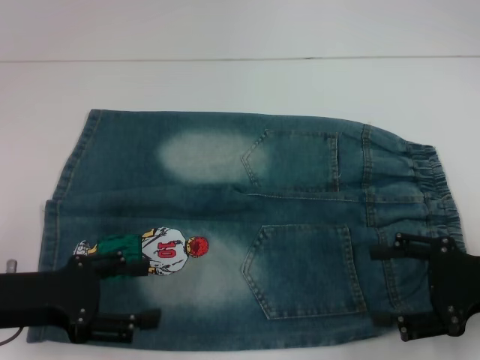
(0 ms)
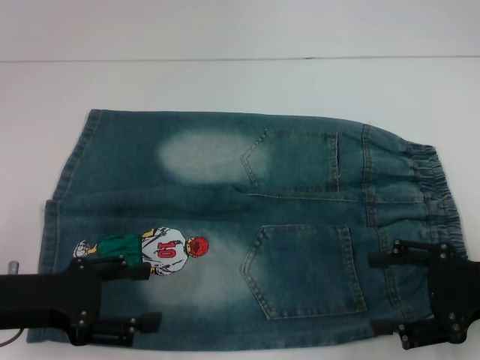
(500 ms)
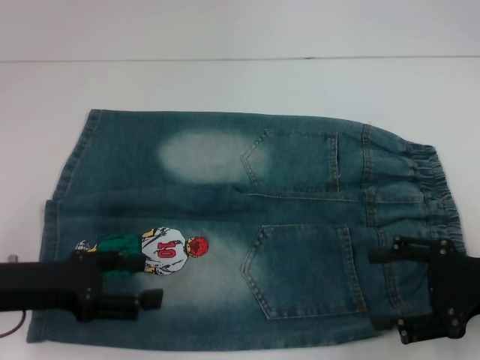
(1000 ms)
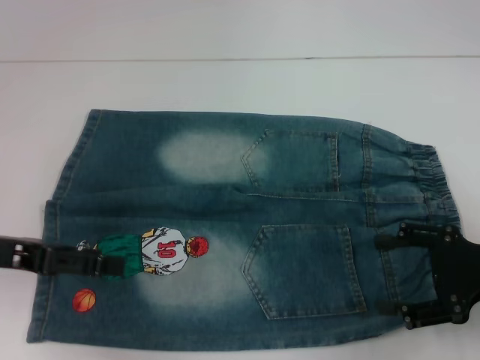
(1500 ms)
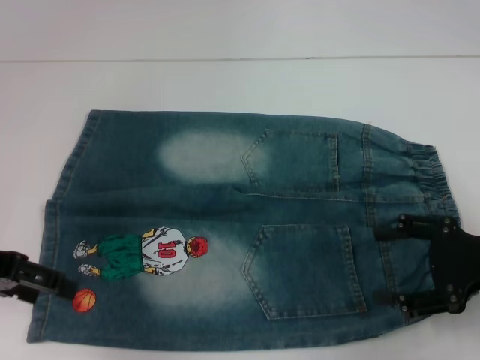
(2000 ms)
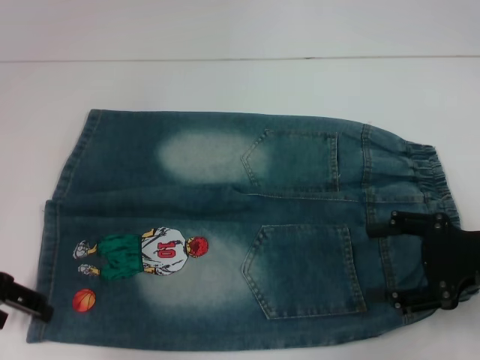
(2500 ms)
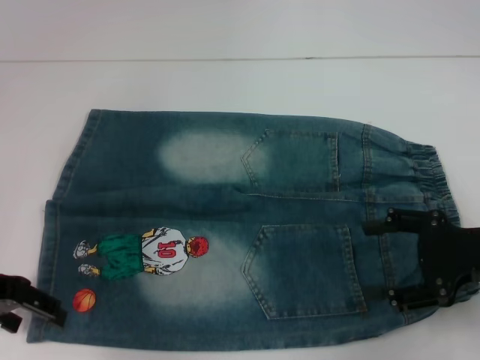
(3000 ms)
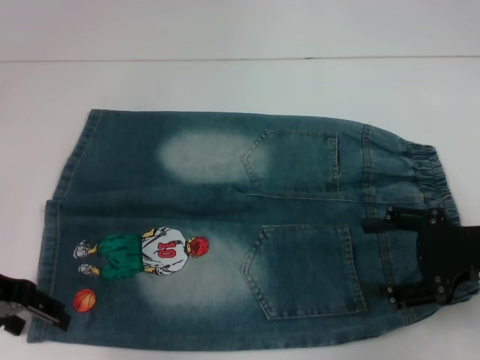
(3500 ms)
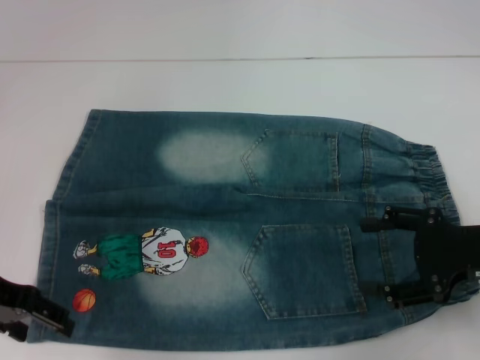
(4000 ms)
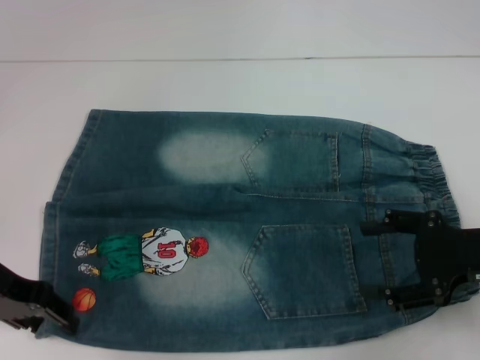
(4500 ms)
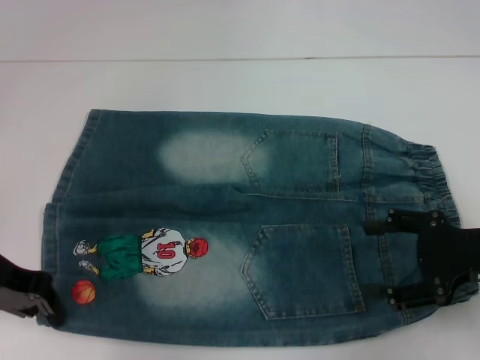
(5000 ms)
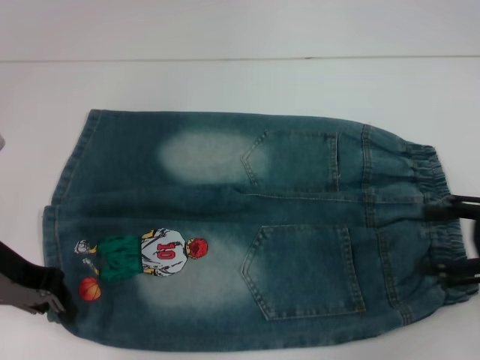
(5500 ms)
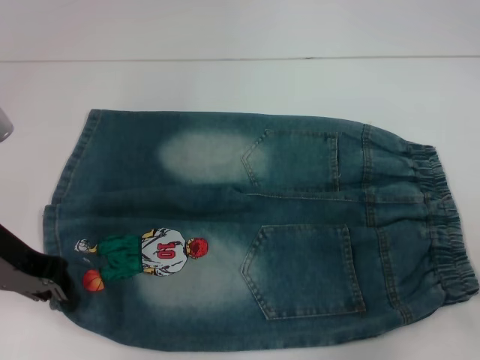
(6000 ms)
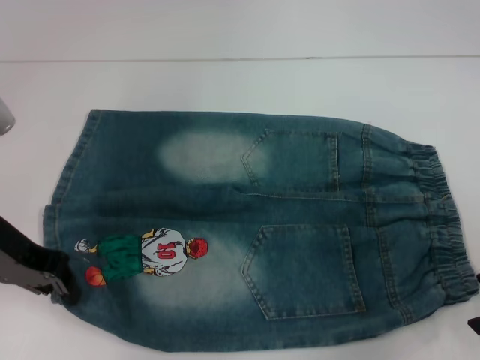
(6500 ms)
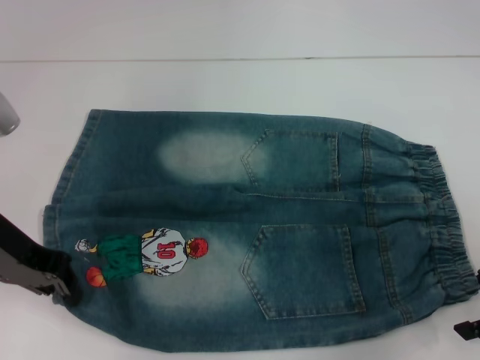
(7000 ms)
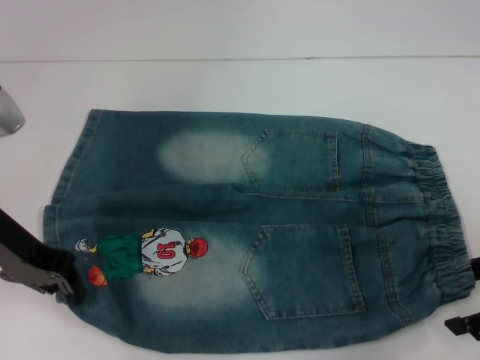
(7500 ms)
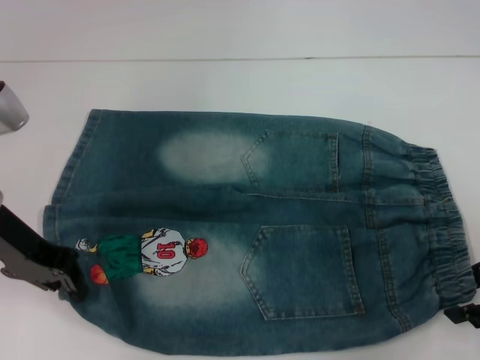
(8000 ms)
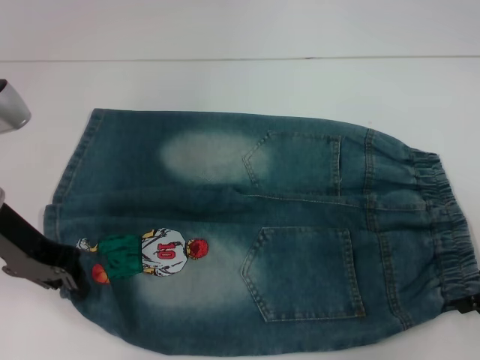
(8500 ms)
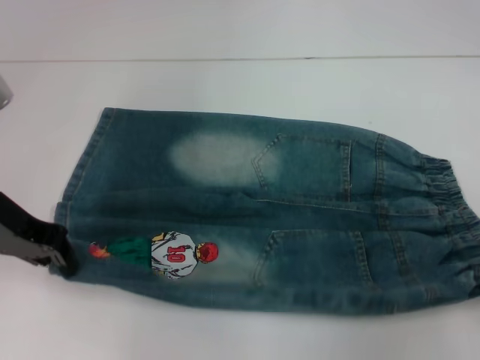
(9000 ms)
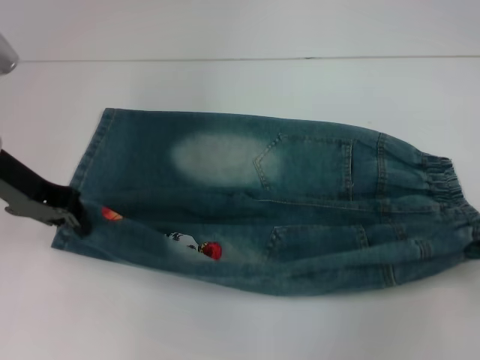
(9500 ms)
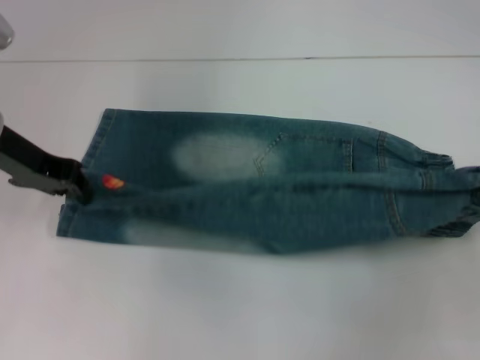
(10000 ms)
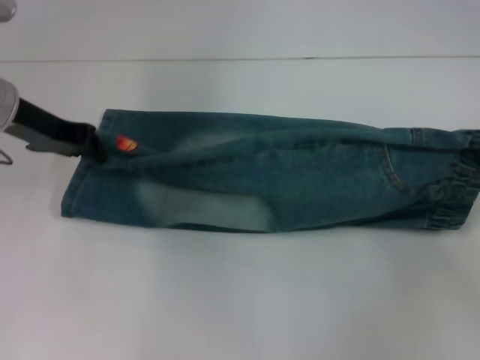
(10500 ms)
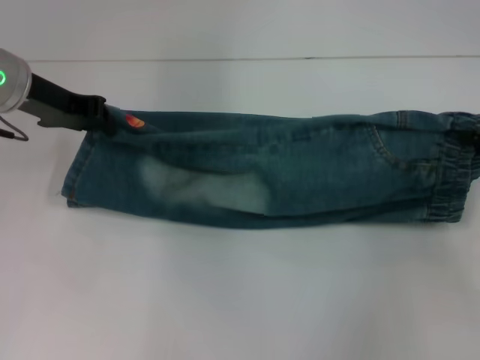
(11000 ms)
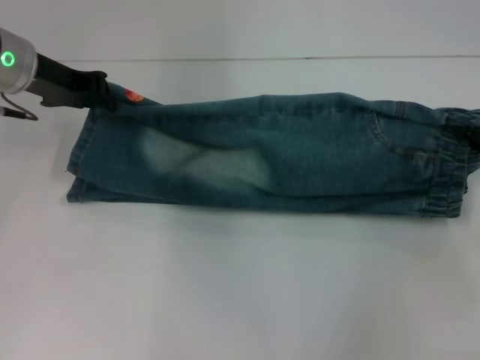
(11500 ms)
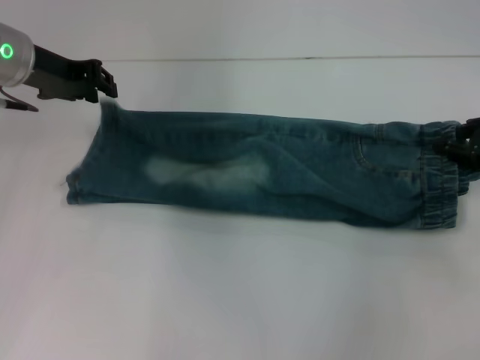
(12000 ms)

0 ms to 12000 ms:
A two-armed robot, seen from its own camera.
Step, 0 ms to 5000 ms: Grab the lower left pant leg with your left hand.
Step, 5500 ms to 8000 ms: Hold the lower right waistband with your right hand.
0 ms to 2000 ms: The left gripper travels upward and forward by about 10 cm.
2000 ms to 4000 ms: The grippers move only a little.
4000 ms to 6000 ms: The left gripper closes its fingers. Meanwhile the right gripper travels to the right and upward by roughly 10 cm.
6000 ms to 8000 ms: The right gripper shifts by about 5 cm, and closes.
8000 ms to 10000 ms: The right gripper heads upward, covering roughly 5 cm, and closes its fingers, while the left gripper shifts by about 5 cm.
10000 ms to 12000 ms: Both grippers travel together forward, approximately 5 cm.

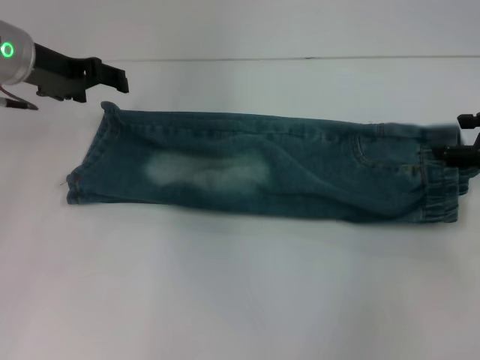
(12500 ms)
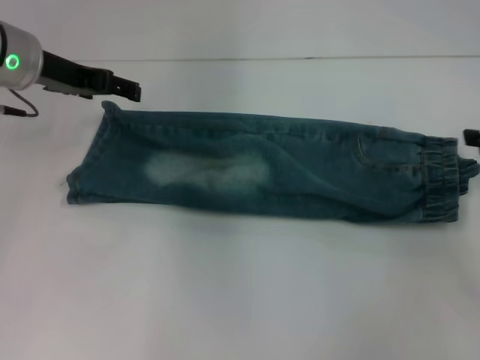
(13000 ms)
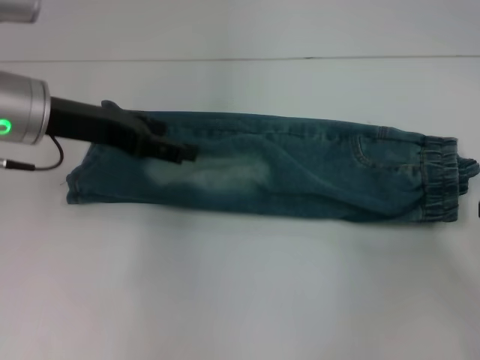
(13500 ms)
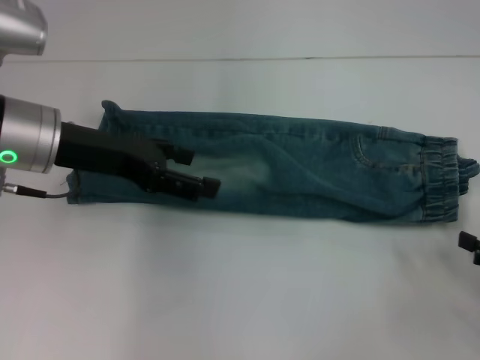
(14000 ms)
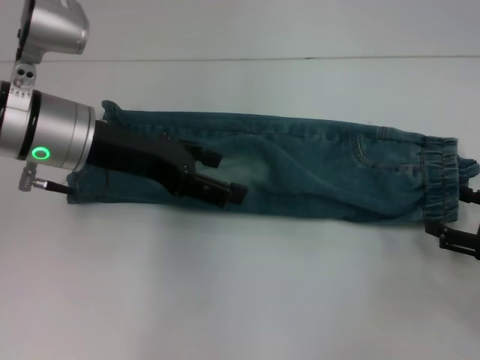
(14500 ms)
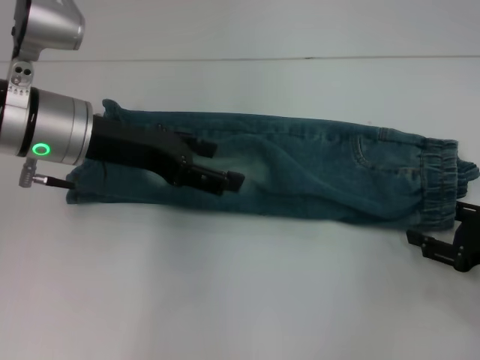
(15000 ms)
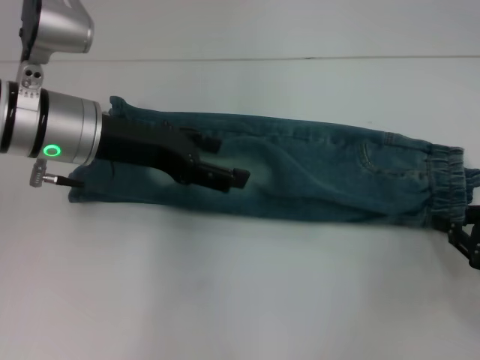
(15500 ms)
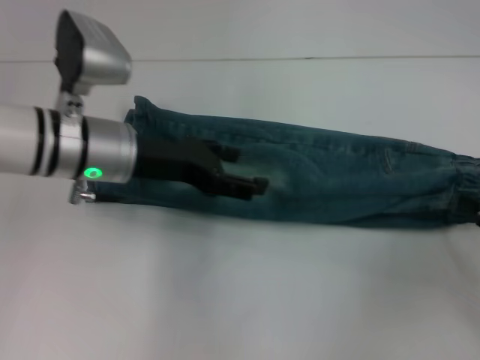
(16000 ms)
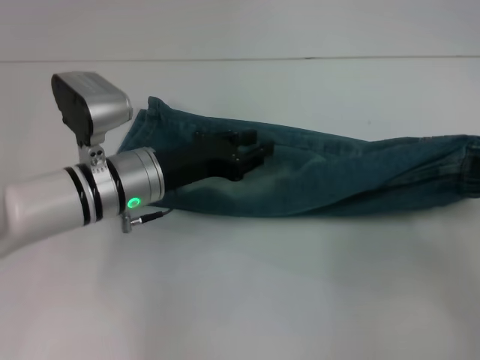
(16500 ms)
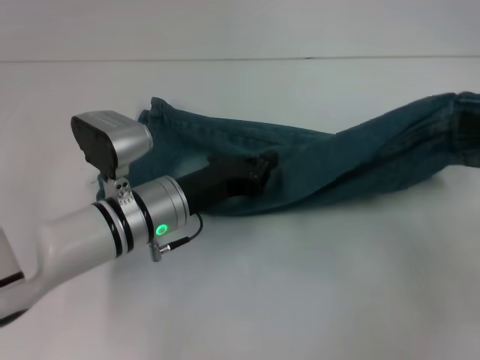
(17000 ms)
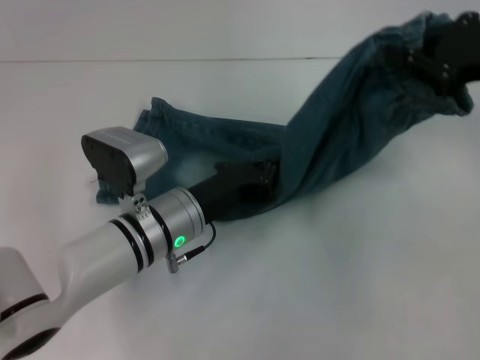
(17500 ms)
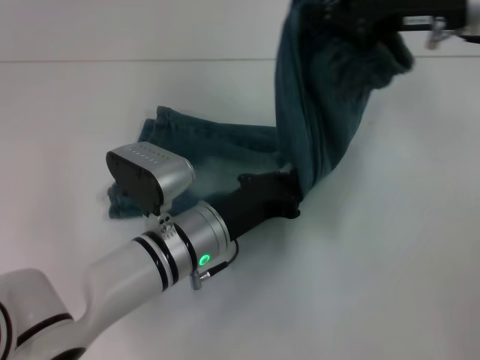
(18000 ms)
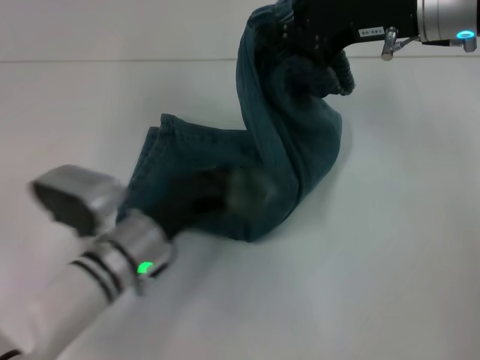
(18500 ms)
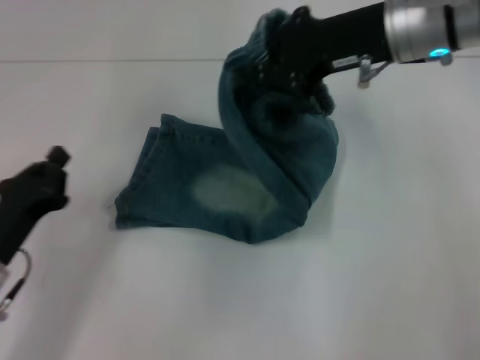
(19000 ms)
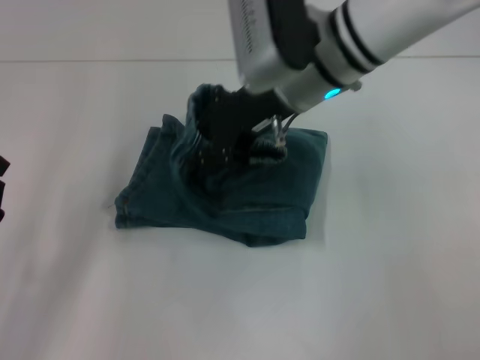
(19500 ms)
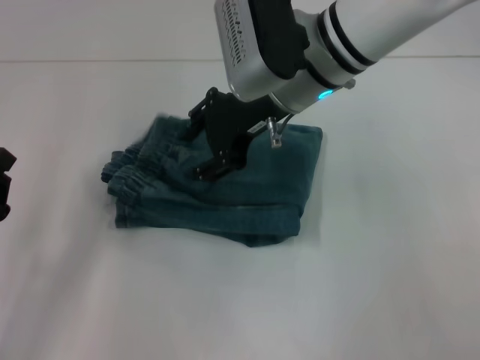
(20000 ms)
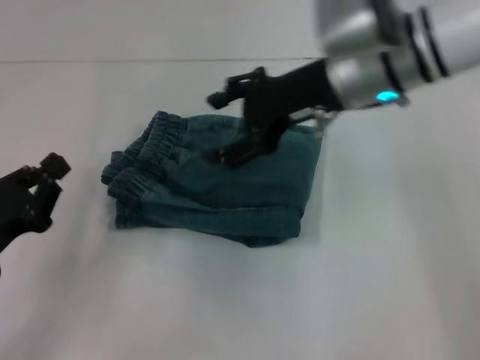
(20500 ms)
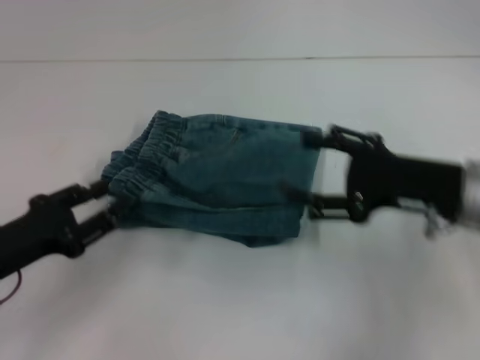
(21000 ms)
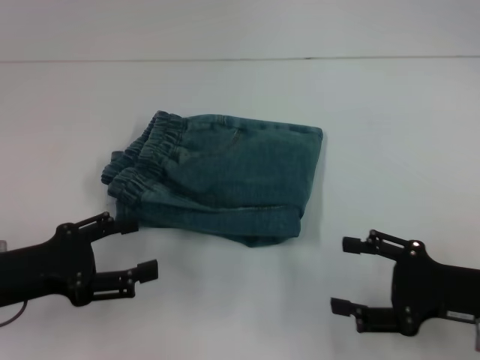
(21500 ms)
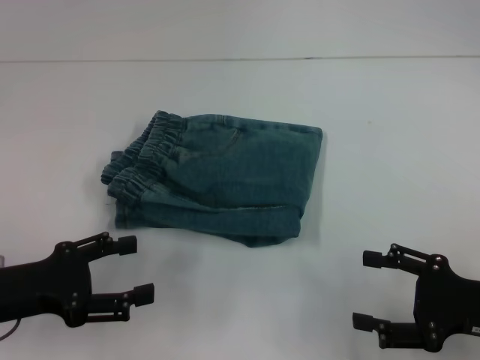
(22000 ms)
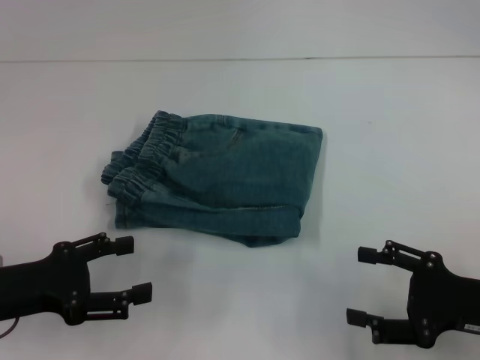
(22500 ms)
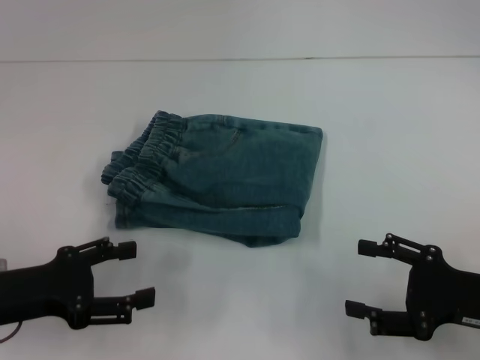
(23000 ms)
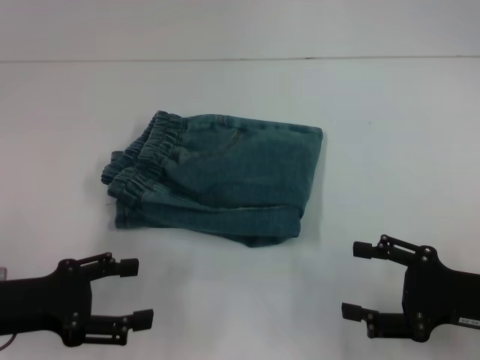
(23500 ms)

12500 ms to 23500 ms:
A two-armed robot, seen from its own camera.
Step, 13000 ms to 15500 ms: Grab the waistband with your right hand.
Step, 16000 ms to 18000 ms: Press the middle of the pants with your left hand.
Step, 18500 ms to 20000 ms: Fold to the left with your right hand.
12500 ms to 14500 ms: The right gripper goes approximately 15 cm backward and downward, and opens its fingers; the left gripper goes some 10 cm backward and to the right.
14500 ms to 16000 ms: The right gripper closes up.
16000 ms to 18000 ms: The right gripper goes some 30 cm forward, upward and to the left. Meanwhile the left gripper goes some 15 cm downward, to the right and backward, and closes.
18000 ms to 20000 ms: Both grippers move to the left, approximately 20 cm. The right gripper opens its fingers.
20000 ms to 21500 ms: The left gripper ends up approximately 5 cm from where it was, and opens. The right gripper moves to the right, backward and downward, about 30 cm, and opens up.
21500 ms to 23500 ms: There are only small adjustments of the grippers.

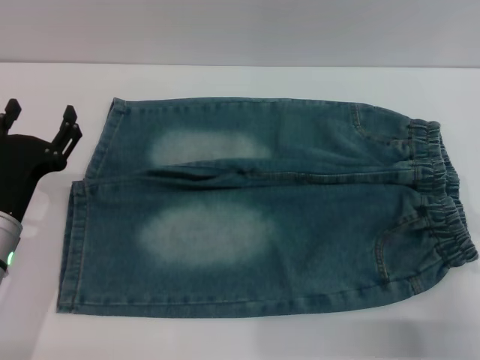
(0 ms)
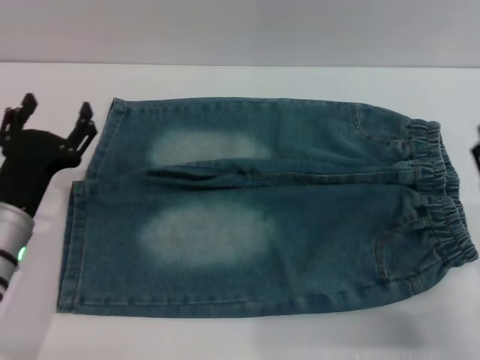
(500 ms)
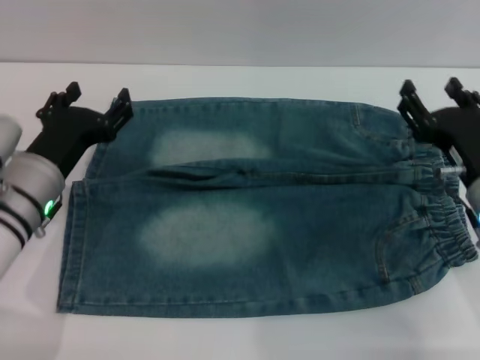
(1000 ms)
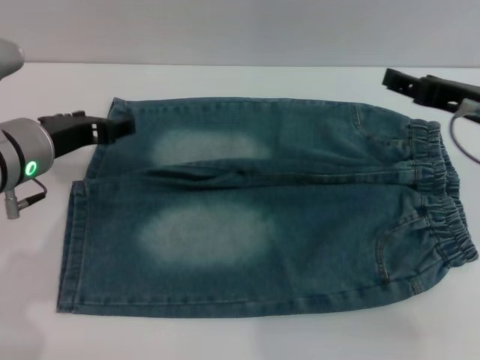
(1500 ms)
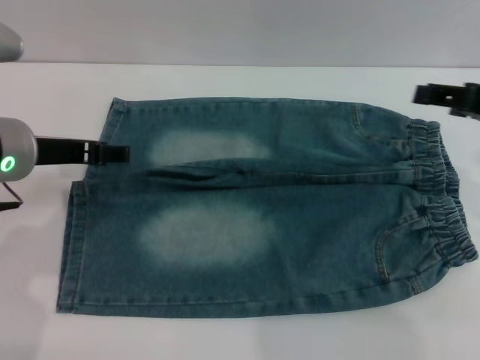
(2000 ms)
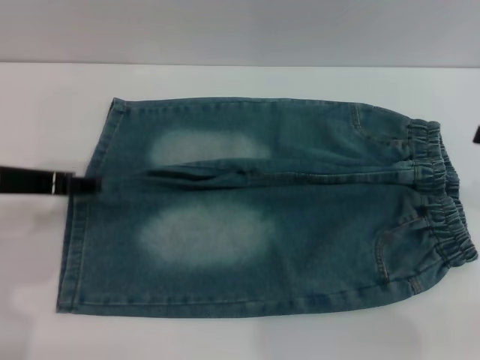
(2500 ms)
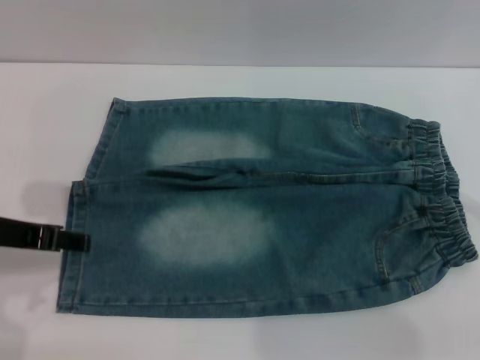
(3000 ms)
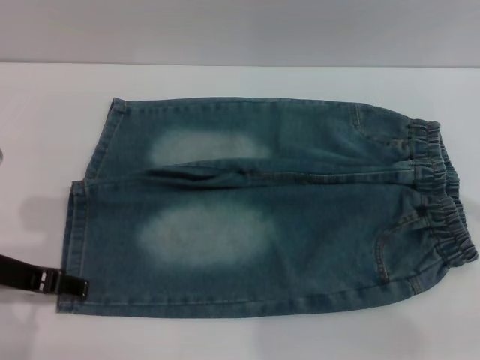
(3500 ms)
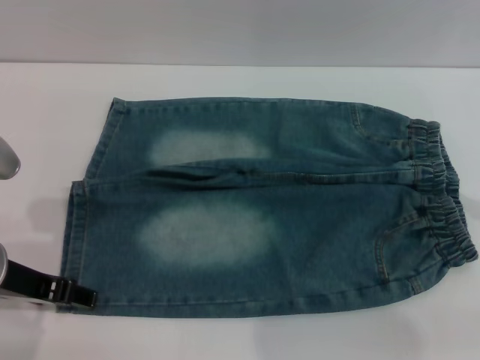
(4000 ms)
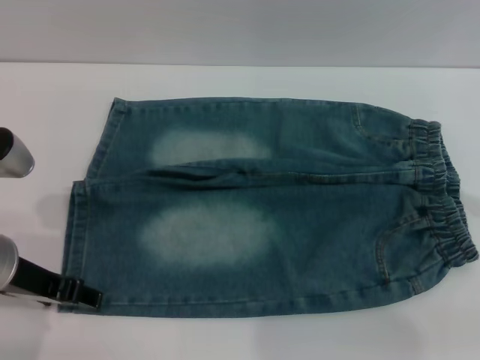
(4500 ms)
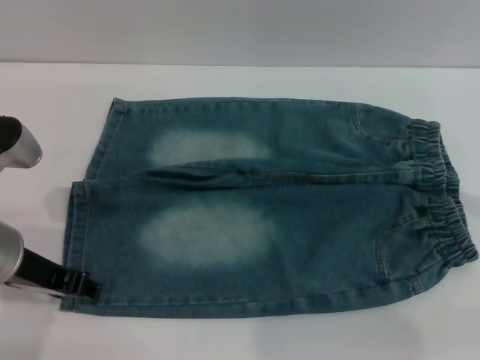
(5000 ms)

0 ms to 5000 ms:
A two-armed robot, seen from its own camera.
0 ms to 2500 ms: Both grippers travel together upward, some 15 cm.
